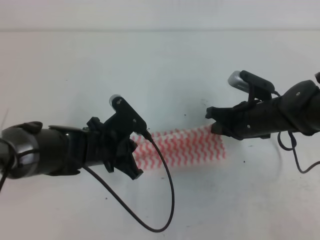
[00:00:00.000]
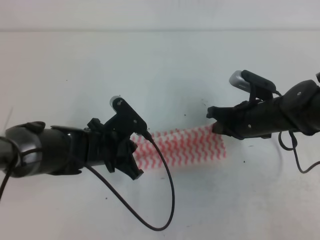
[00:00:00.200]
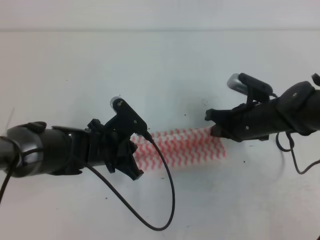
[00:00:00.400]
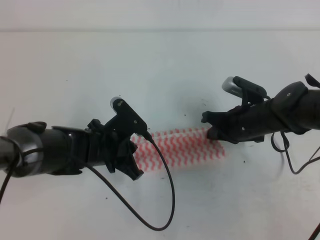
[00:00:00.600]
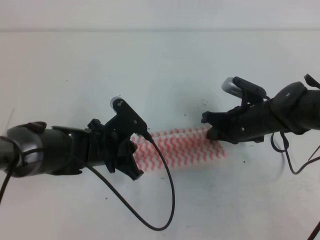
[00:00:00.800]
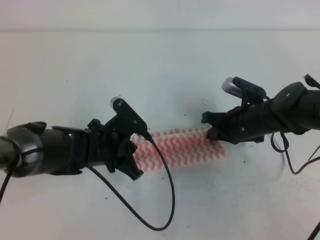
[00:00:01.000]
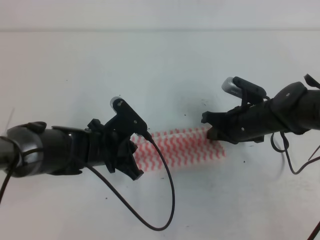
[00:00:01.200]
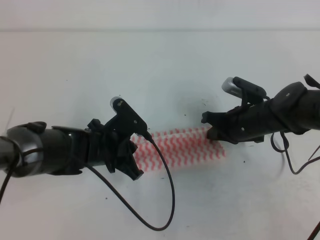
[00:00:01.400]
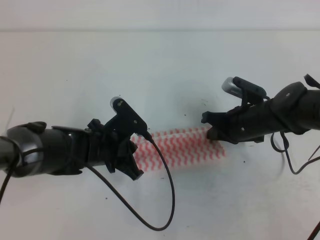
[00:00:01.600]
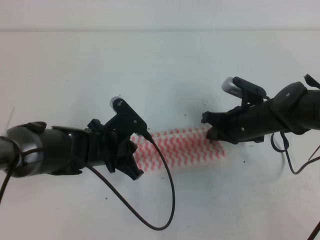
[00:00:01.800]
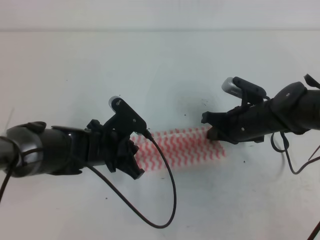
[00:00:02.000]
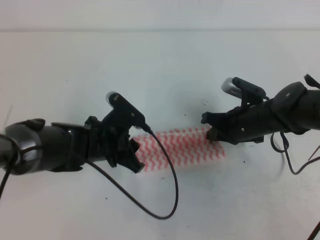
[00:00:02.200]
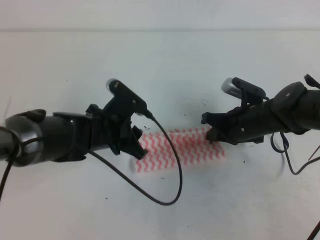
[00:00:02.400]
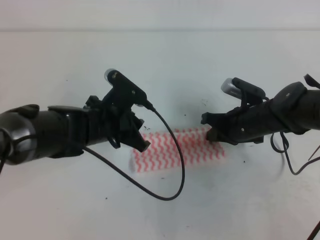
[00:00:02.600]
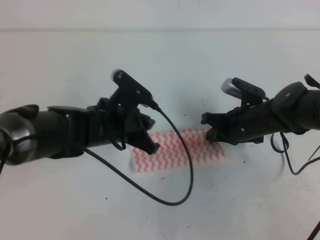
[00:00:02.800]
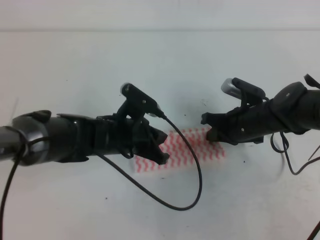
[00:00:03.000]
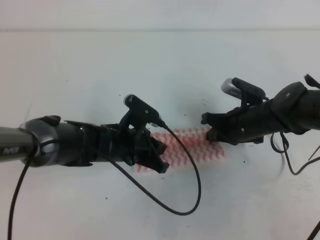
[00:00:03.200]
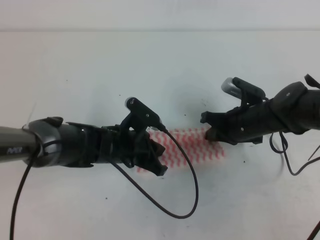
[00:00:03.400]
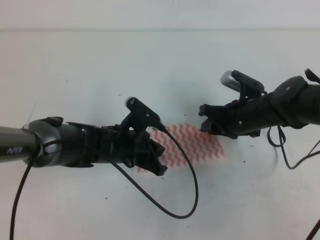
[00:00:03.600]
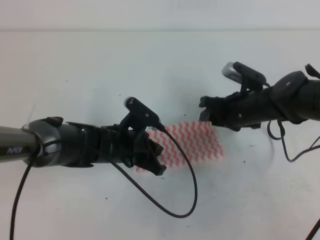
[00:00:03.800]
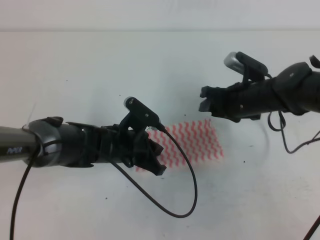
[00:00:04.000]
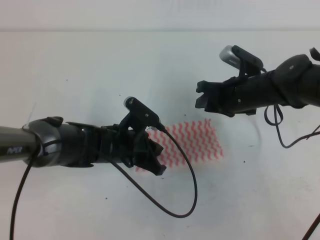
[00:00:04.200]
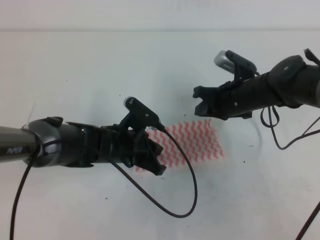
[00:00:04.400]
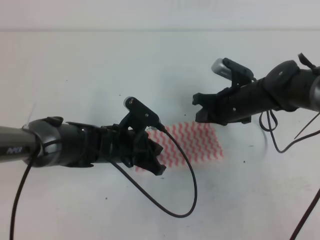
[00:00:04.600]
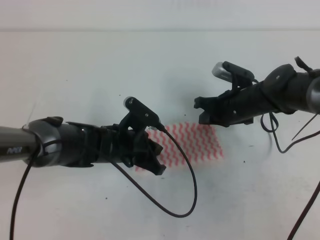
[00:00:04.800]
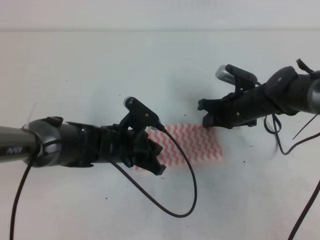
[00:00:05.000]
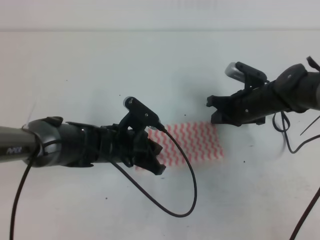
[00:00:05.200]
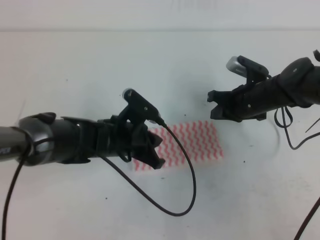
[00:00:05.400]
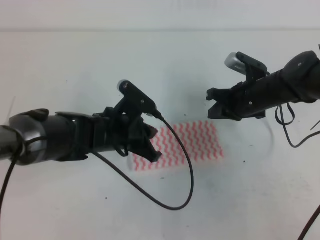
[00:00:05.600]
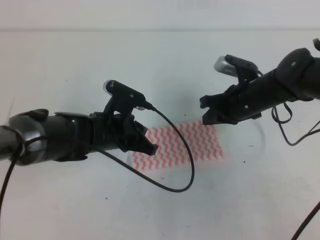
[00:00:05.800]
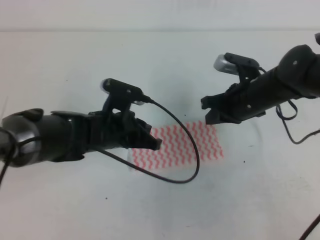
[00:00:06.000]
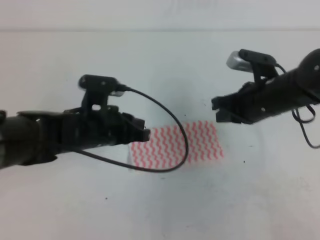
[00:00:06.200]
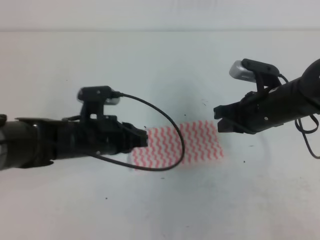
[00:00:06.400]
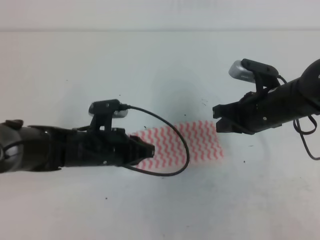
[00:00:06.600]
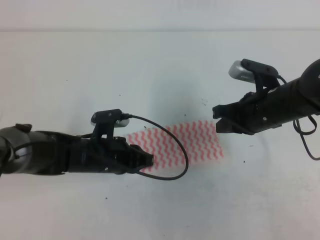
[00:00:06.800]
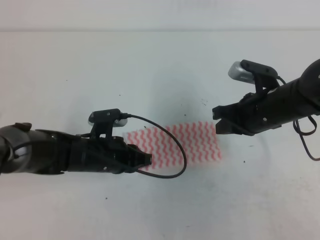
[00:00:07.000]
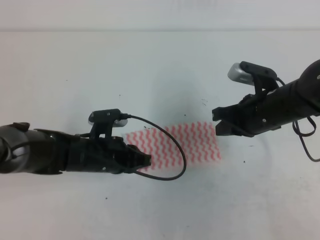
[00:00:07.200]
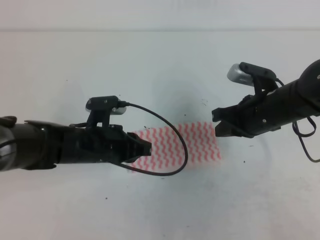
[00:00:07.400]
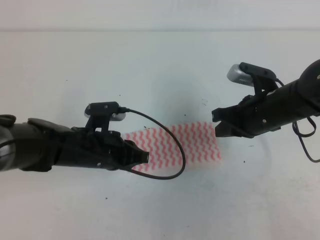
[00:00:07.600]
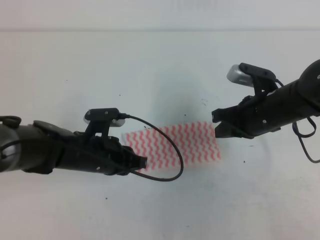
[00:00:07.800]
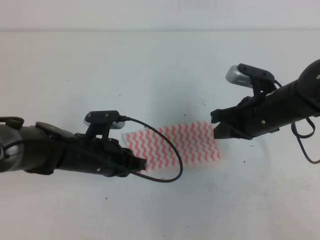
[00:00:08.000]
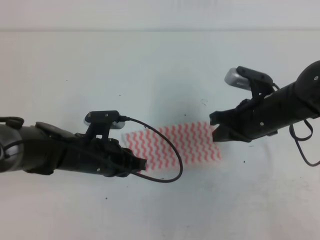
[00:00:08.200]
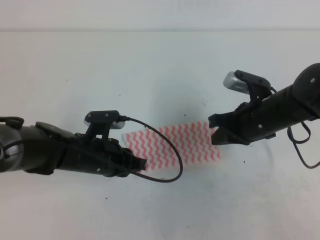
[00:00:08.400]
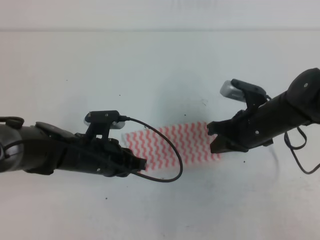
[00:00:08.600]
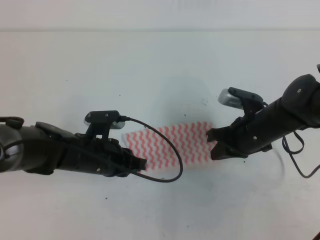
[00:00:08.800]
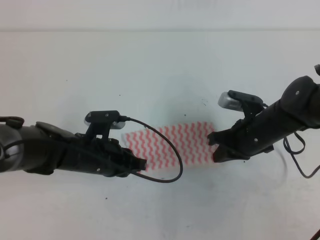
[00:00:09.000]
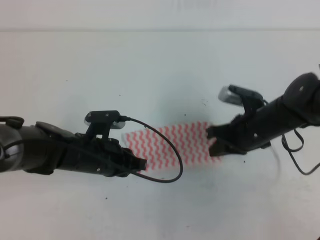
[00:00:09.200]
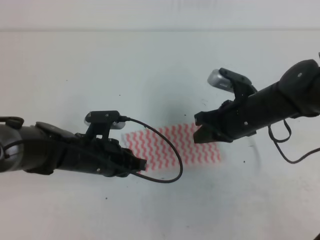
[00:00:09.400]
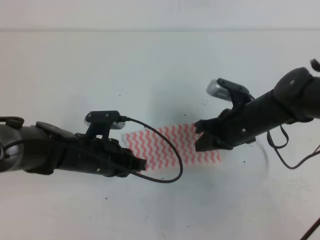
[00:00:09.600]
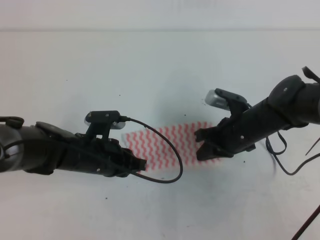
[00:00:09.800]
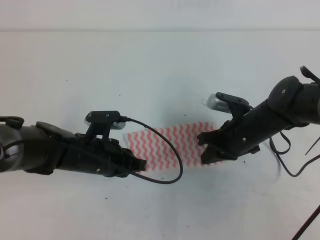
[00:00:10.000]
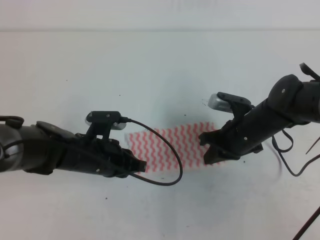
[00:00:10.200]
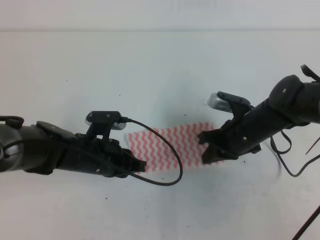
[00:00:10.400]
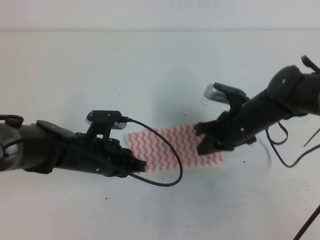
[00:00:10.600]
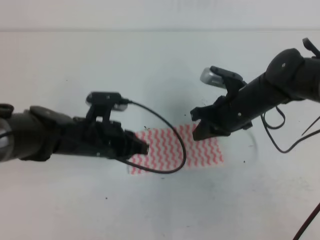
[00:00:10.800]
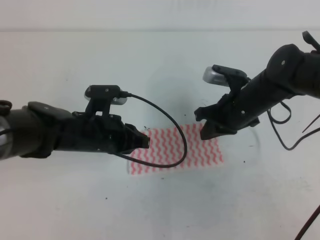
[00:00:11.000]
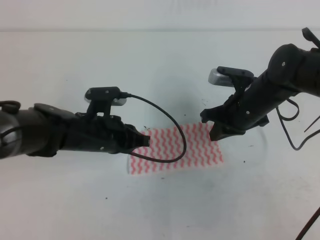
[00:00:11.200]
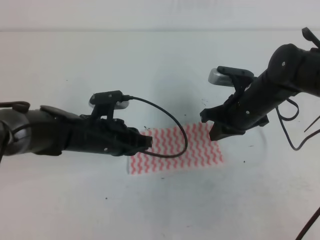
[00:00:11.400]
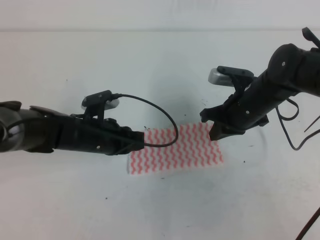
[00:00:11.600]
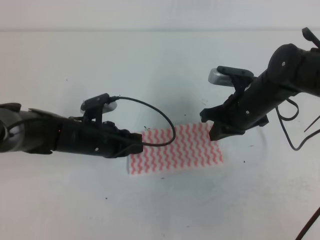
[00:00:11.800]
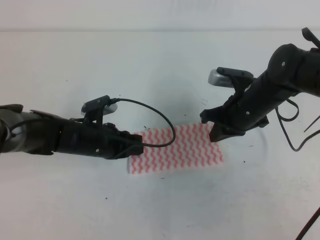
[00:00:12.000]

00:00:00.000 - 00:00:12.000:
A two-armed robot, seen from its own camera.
00:00:00.000 - 00:00:01.600: The grippers make only small movements.
00:00:01.600 - 00:00:03.000: The left gripper opens and closes again.
00:00:03.000 - 00:00:04.400: The right gripper opens, then closes once more.
00:00:04.400 - 00:00:06.000: The left gripper ends up roughly 5 cm from where it was.
00:00:07.600 - 00:00:09.000: The grippers make only small movements.
00:00:09.000 - 00:00:10.400: The grippers move only a little.

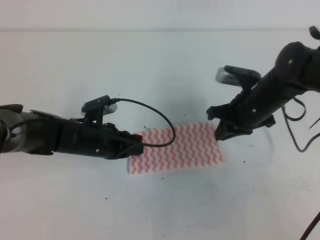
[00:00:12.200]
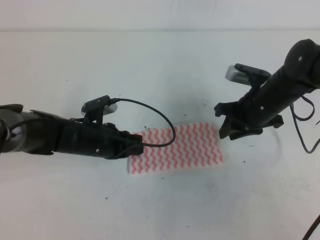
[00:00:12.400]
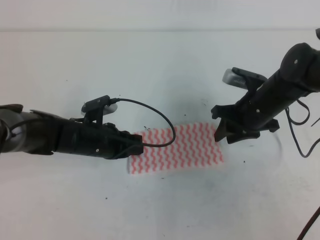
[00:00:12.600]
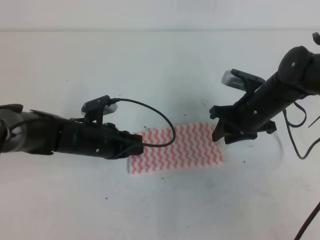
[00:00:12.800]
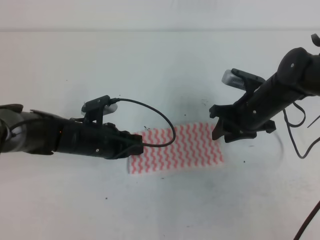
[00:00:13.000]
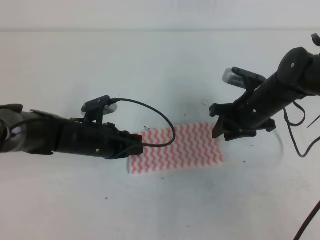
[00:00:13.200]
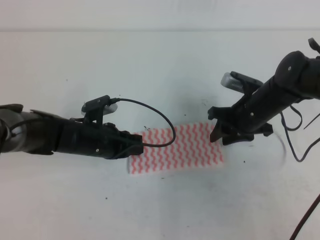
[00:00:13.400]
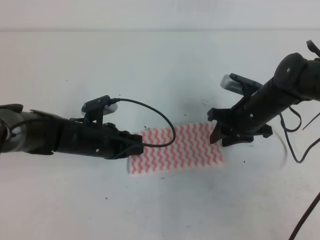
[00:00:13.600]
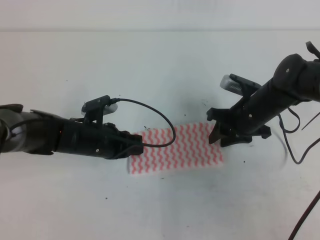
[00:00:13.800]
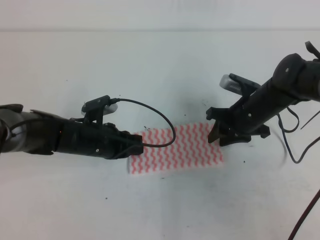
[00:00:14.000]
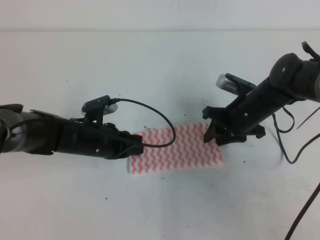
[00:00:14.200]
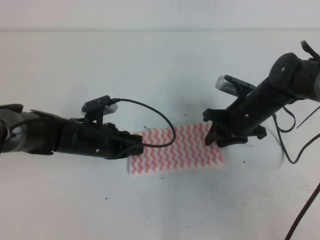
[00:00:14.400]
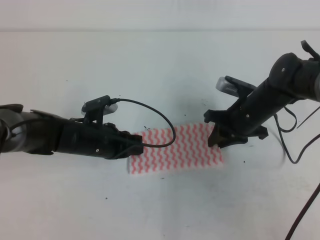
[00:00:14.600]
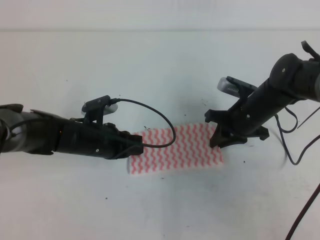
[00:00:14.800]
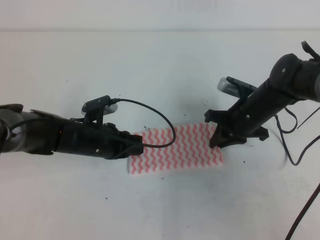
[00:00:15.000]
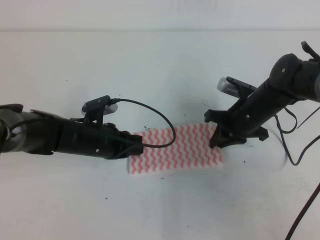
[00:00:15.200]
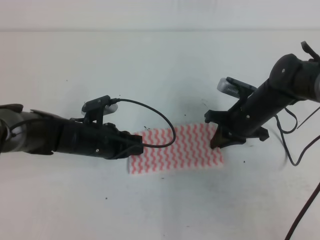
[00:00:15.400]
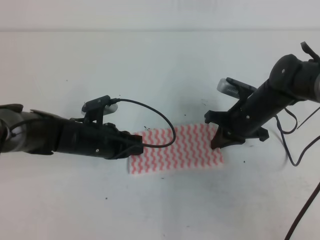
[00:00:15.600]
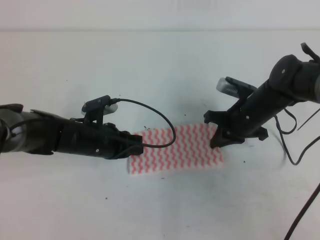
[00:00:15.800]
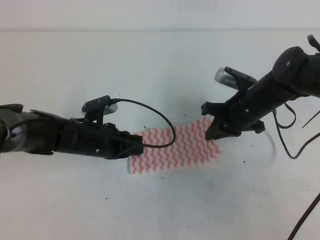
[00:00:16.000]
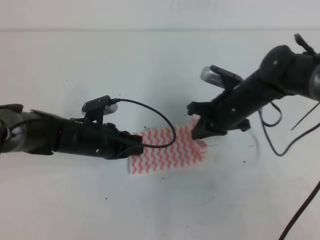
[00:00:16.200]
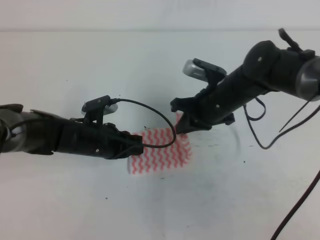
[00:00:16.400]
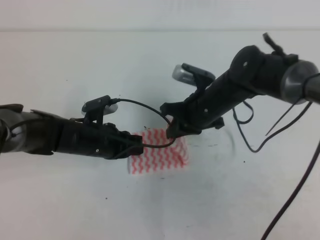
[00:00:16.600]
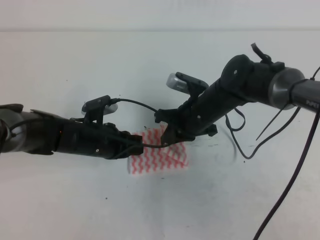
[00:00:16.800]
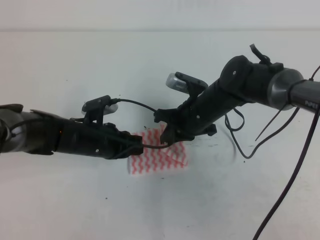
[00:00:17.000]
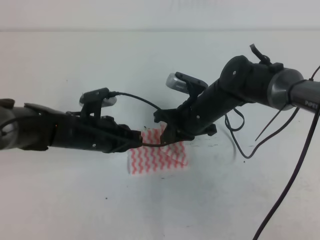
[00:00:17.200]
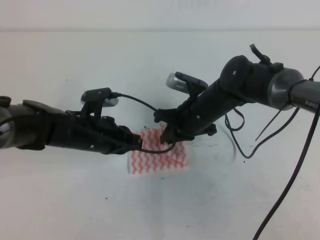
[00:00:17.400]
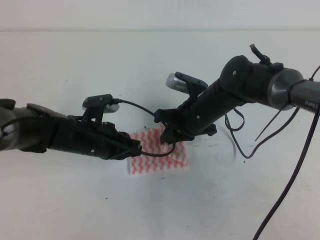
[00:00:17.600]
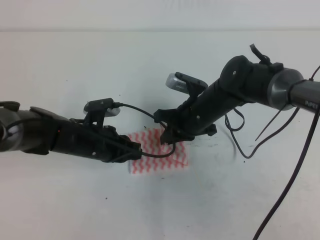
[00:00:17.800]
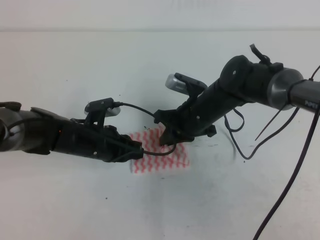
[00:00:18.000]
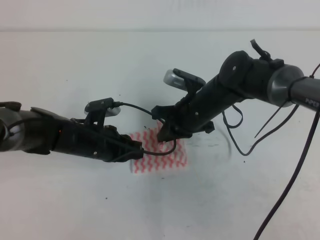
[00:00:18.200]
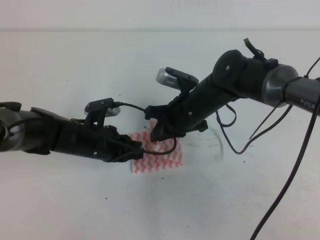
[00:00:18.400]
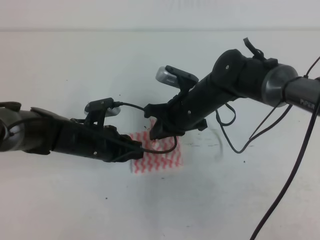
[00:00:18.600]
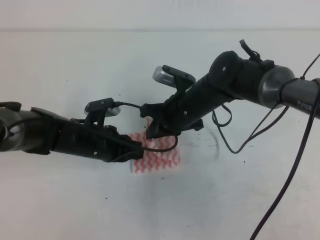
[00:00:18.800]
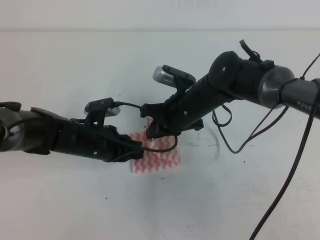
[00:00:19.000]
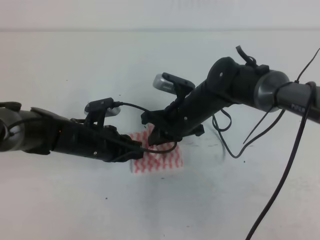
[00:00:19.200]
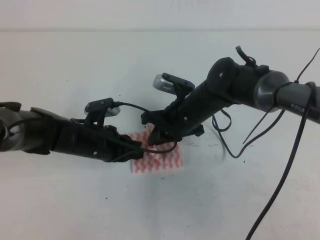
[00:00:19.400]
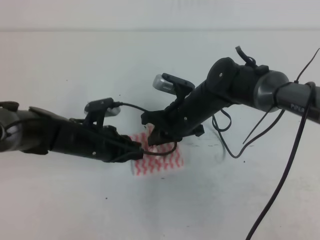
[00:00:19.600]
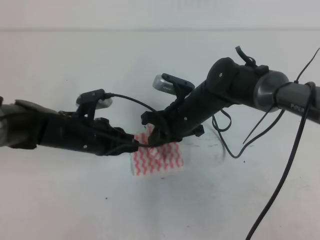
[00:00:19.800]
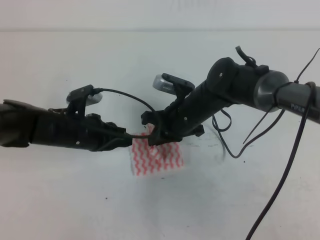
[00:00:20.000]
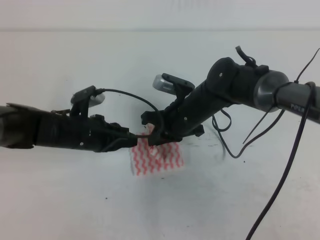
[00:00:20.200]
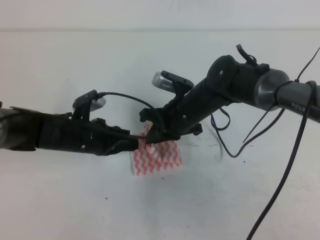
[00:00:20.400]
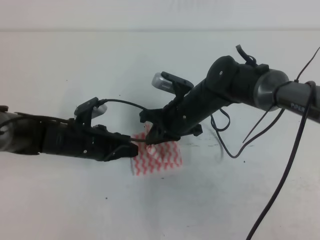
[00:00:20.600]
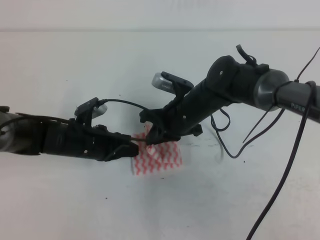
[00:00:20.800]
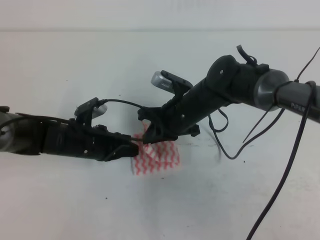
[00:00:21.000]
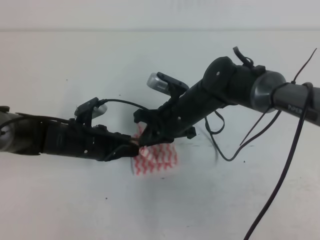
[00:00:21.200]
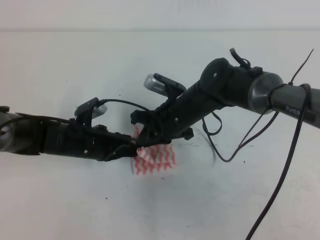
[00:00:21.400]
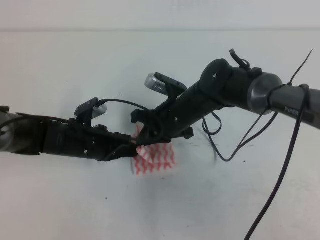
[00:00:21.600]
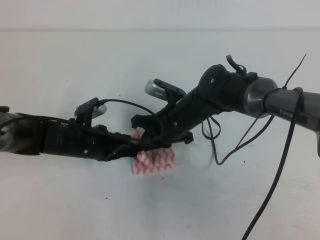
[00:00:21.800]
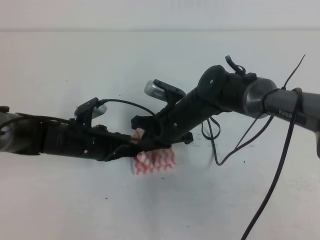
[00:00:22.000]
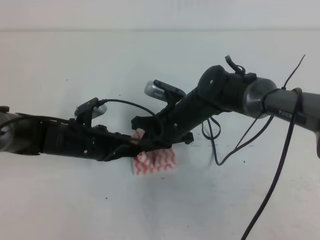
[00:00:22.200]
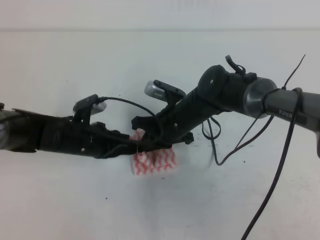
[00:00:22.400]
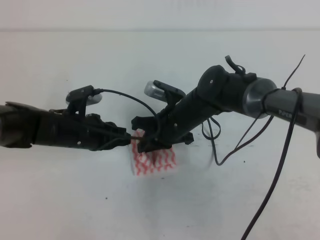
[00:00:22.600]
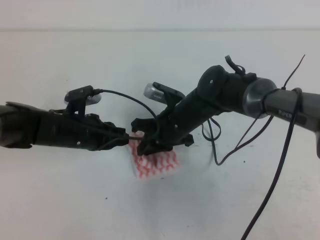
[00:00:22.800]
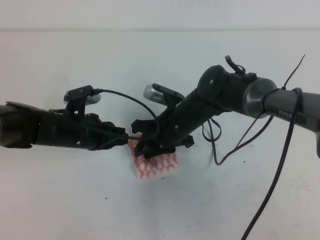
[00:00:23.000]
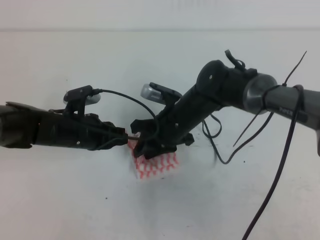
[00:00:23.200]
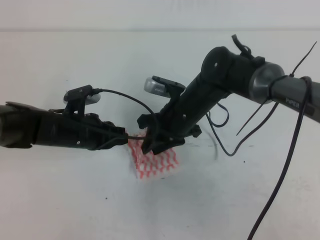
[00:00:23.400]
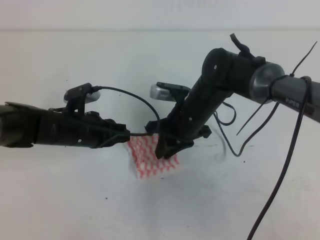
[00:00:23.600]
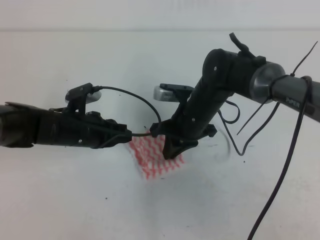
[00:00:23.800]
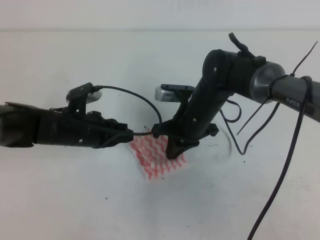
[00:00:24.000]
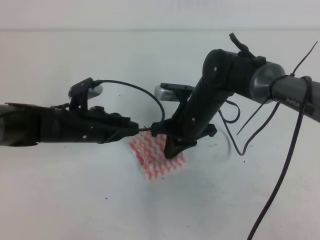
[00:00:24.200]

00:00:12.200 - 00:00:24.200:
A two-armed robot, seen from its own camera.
00:00:12.200 - 00:00:13.800: The right gripper opens.
00:00:13.800 - 00:00:15.200: The right gripper closes up.
00:00:15.200 - 00:00:16.600: The right gripper shifts approximately 10 cm to the left.
00:00:16.600 - 00:00:21.200: There are only small adjustments of the grippers.
00:00:21.200 - 00:00:22.600: There are only small adjustments of the grippers.
00:00:22.600 - 00:00:24.200: The right gripper opens, then closes once more.
